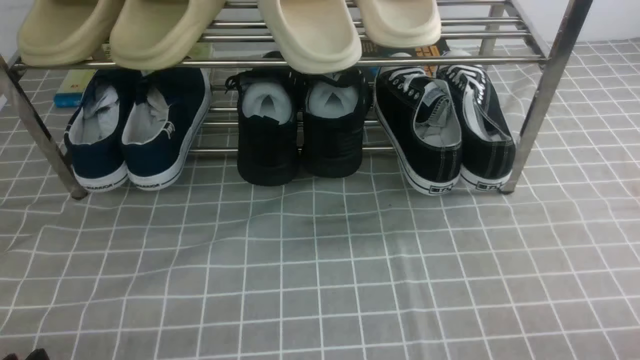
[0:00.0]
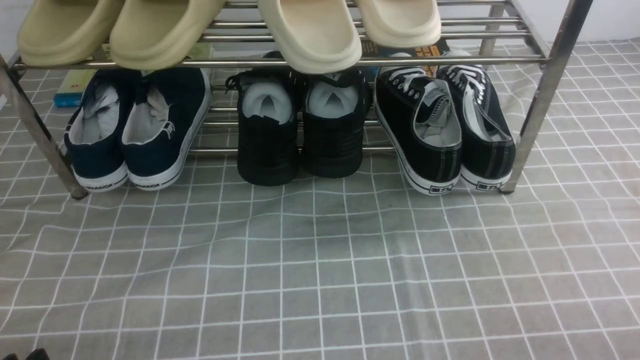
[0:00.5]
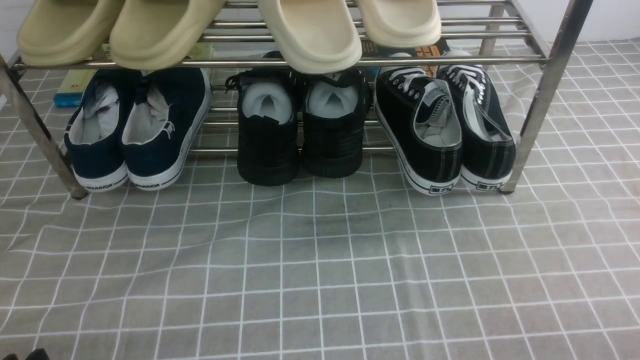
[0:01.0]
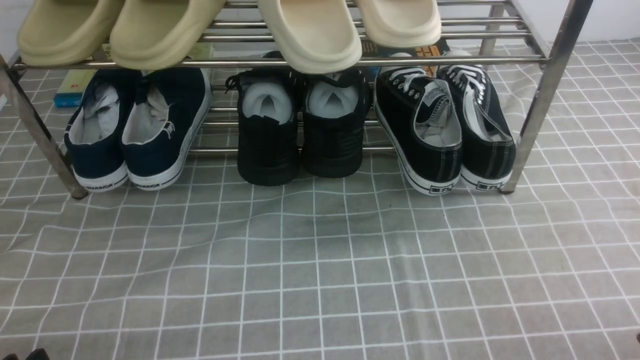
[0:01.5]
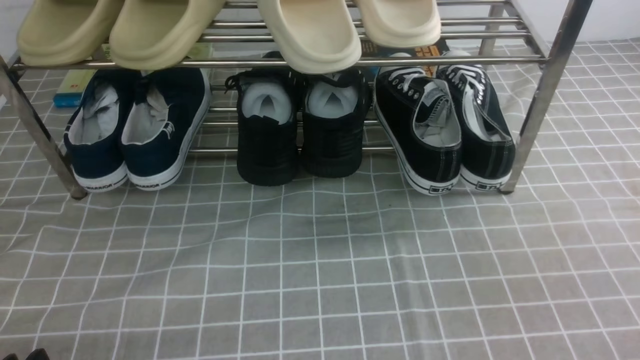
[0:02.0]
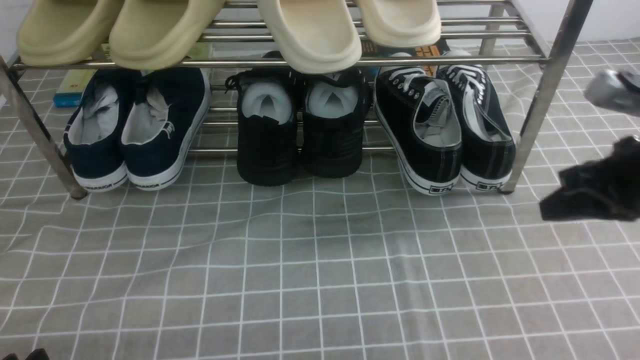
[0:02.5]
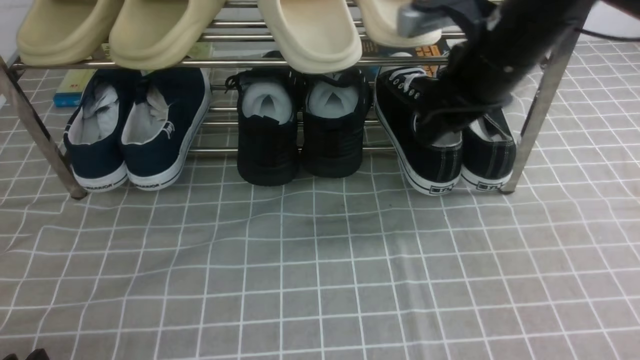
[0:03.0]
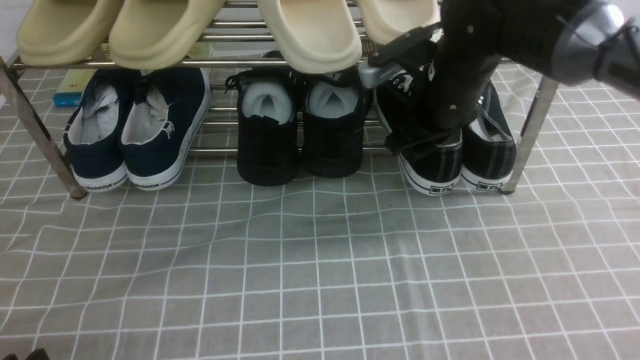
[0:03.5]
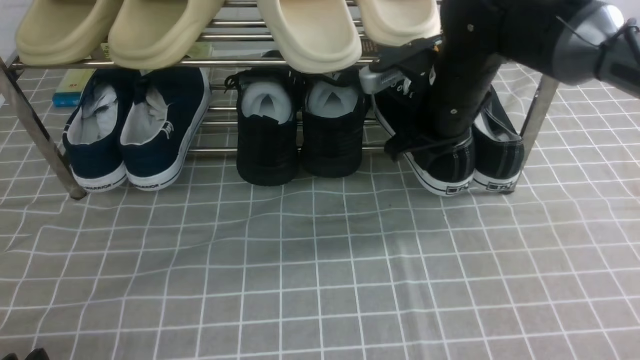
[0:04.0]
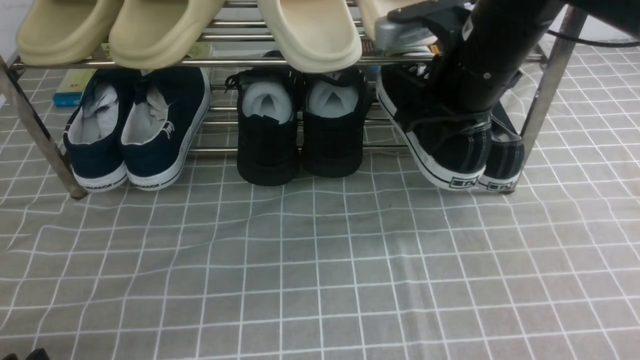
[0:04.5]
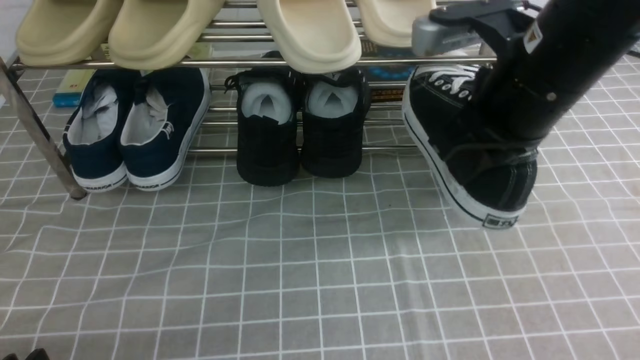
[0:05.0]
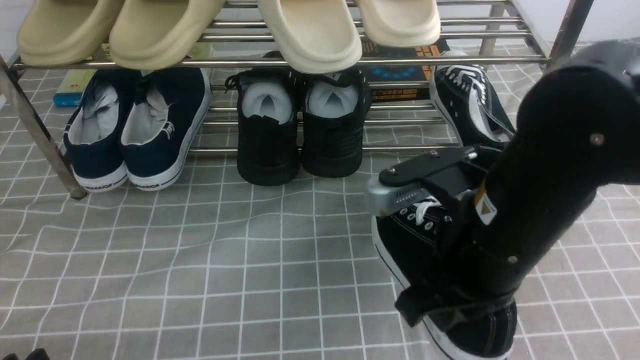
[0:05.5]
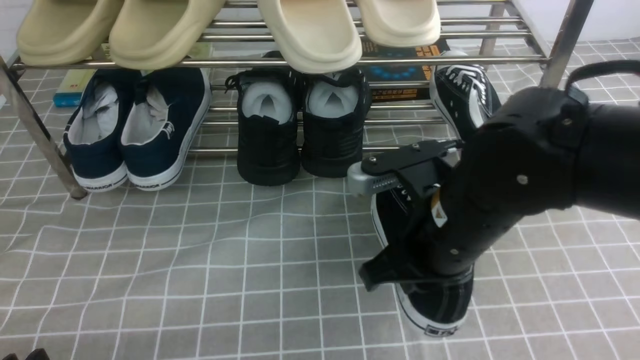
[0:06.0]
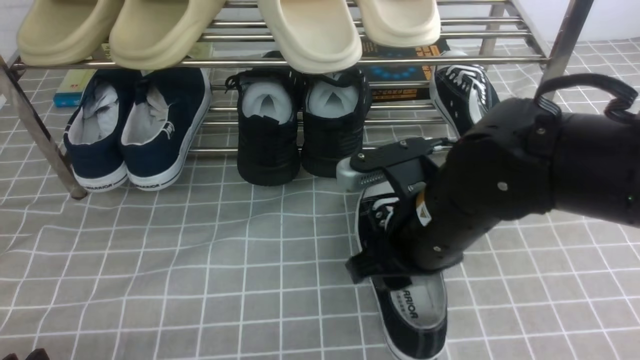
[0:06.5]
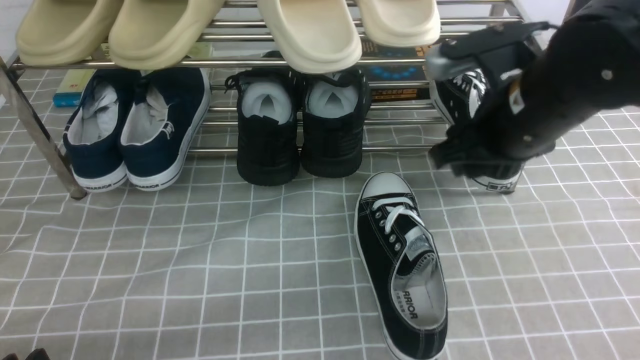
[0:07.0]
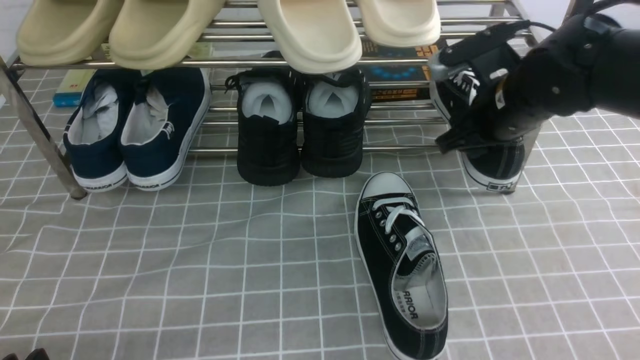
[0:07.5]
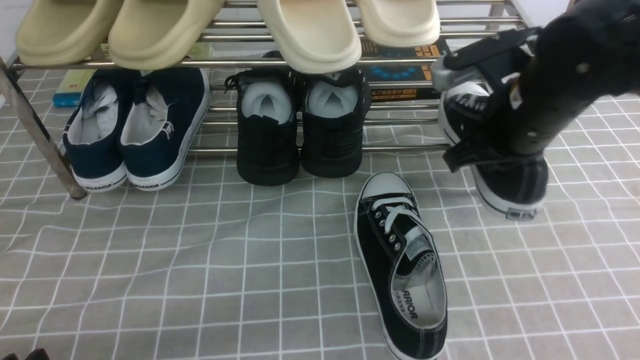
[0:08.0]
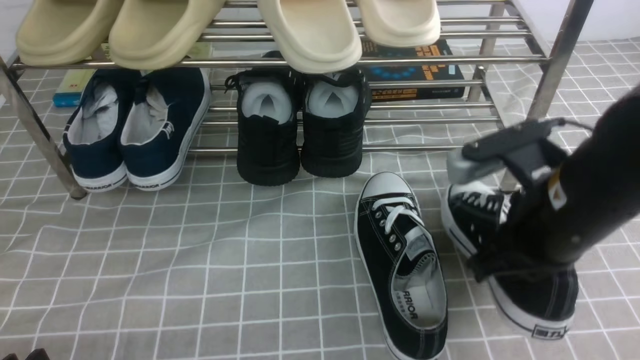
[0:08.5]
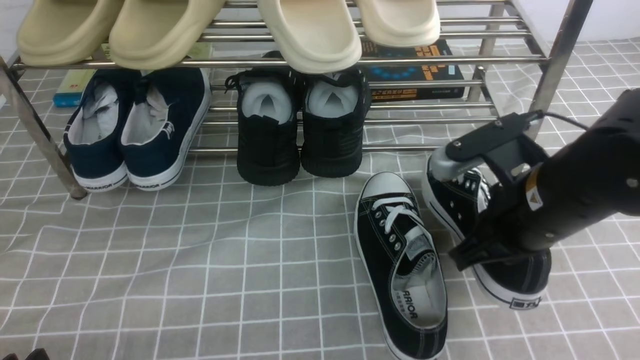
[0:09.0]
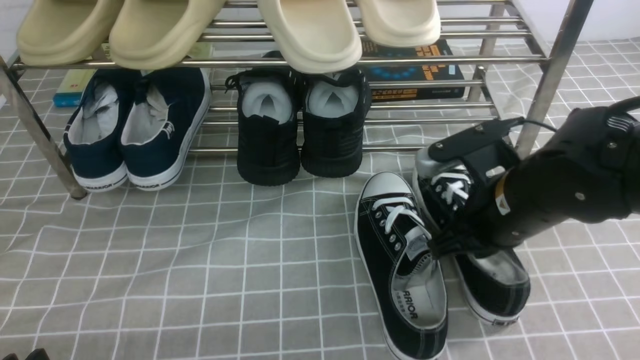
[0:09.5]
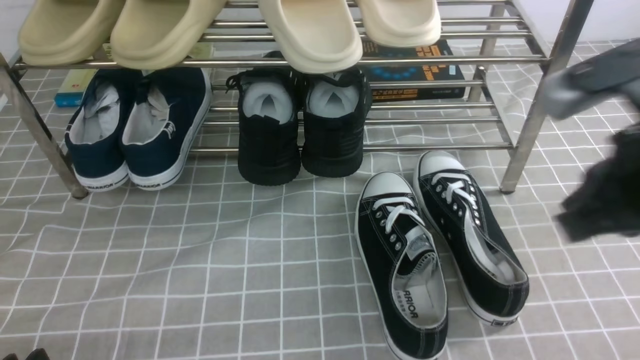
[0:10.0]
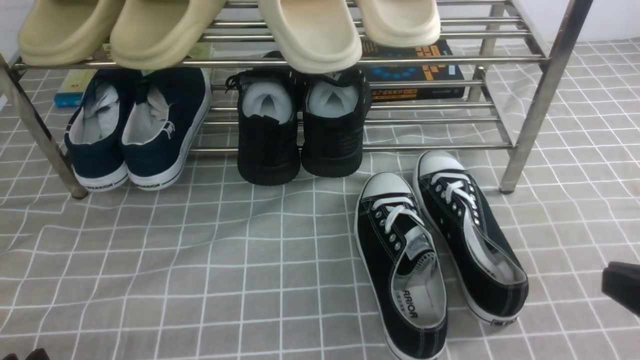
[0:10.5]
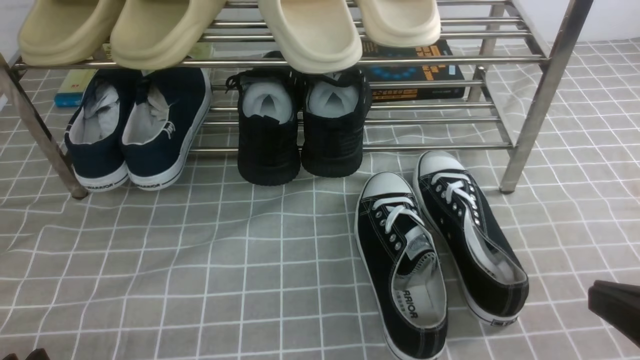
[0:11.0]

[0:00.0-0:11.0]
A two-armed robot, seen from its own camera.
Step, 0:00.0 to 0:04.0: use the right arm to clamp a shoe on the right side of the shoe rack.
Step, 0:04.5 to 0:06.5: use the right arm to take out the clamped shoe from the shoe rack and put it down.
Step, 0:07.0 to 0:08.0: use the right arm to clamp a shoe on the right side of the shoe rack.
Step, 0:08.5 to 0:09.5: use the right arm to take out the clamped shoe from the shoe rack and put it down.
0:02.0 to 0:03.5: The right gripper heads forward and to the left, covering some 35 cm, and opens its fingers.
0:03.5 to 0:05.5: The right gripper moves backward, approximately 20 cm, and closes its fingers.
0:05.5 to 0:07.5: The right gripper travels forward and to the right by approximately 15 cm, and opens its fingers.
0:07.5 to 0:09.0: The right gripper moves backward, approximately 10 cm, and closes.
0:09.0 to 0:11.0: The right gripper heads backward and to the right, covering approximately 20 cm.

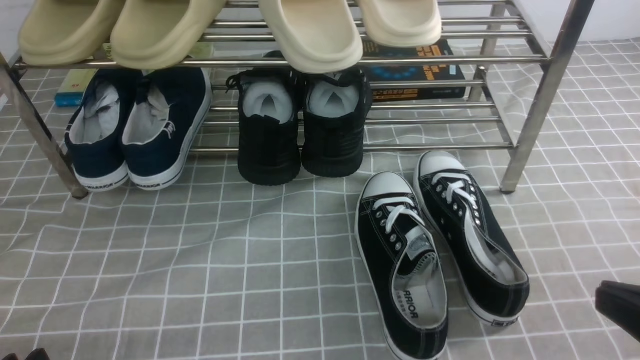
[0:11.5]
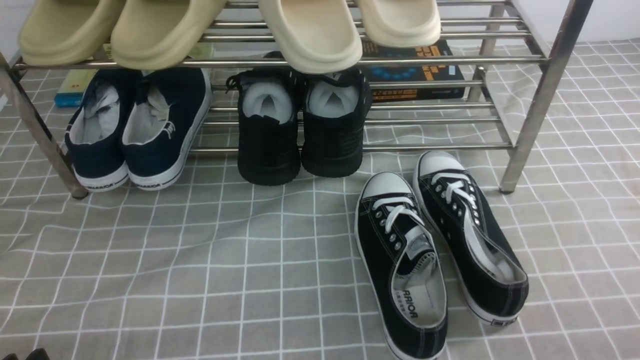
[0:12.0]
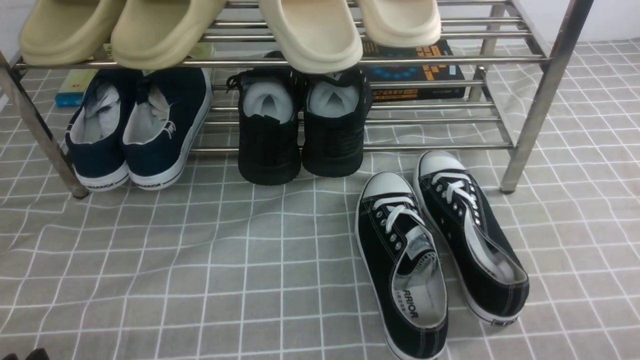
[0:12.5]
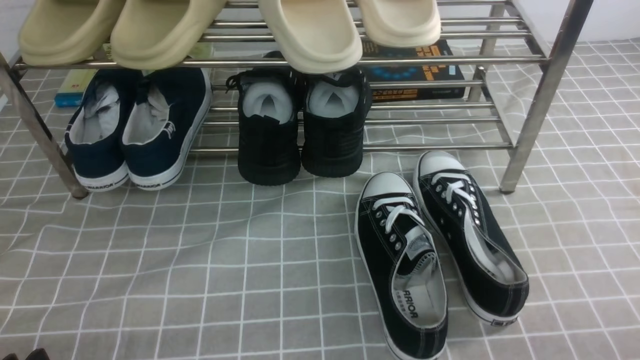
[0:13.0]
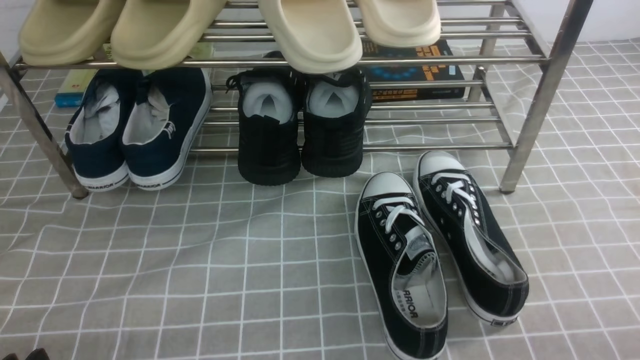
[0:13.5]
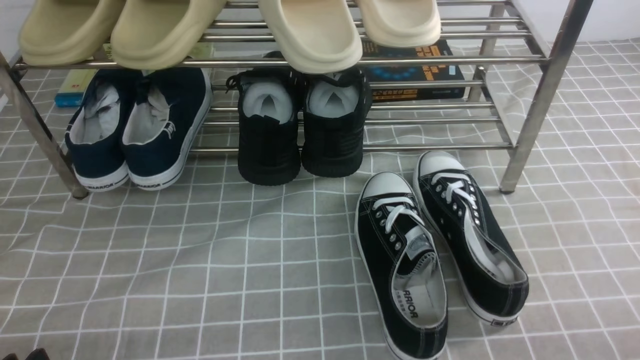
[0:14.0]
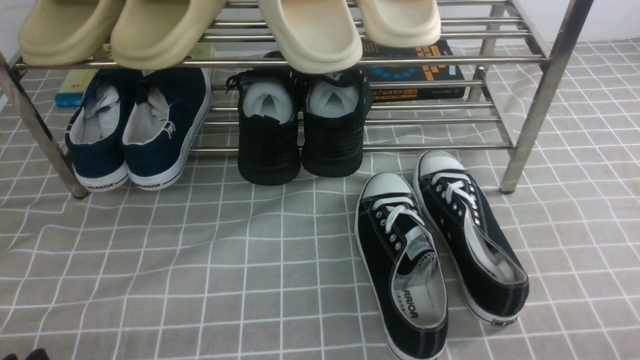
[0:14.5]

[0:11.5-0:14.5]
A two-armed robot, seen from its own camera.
0:11.5 to 0:13.0: The right gripper goes roughly 10 cm downward and to the right.
0:13.0 to 0:14.5: Both grippers stay put.
